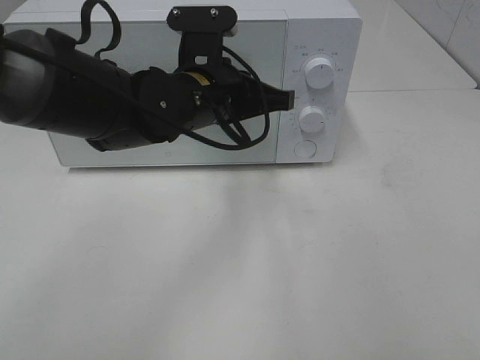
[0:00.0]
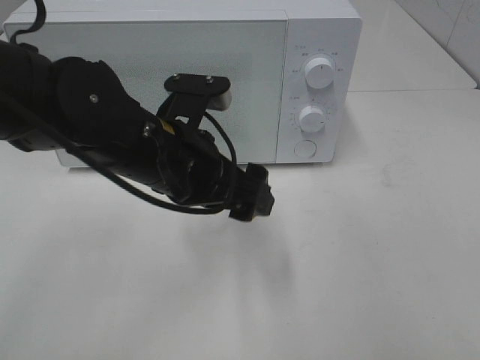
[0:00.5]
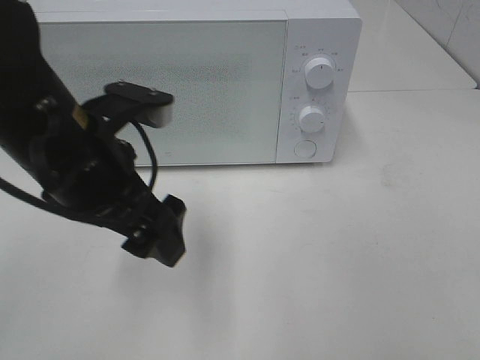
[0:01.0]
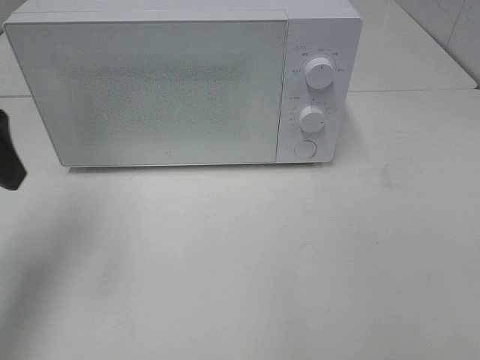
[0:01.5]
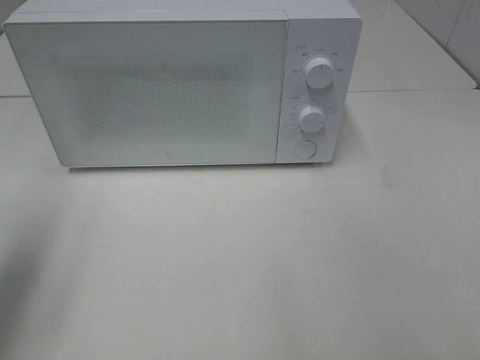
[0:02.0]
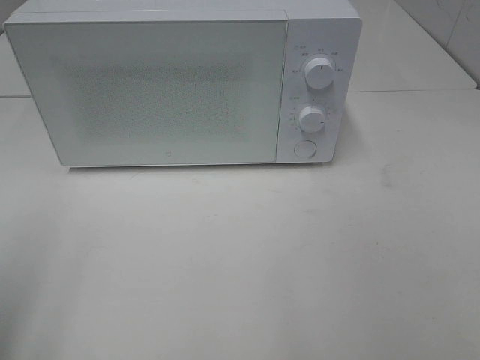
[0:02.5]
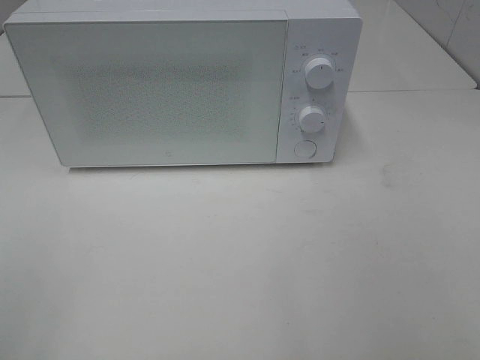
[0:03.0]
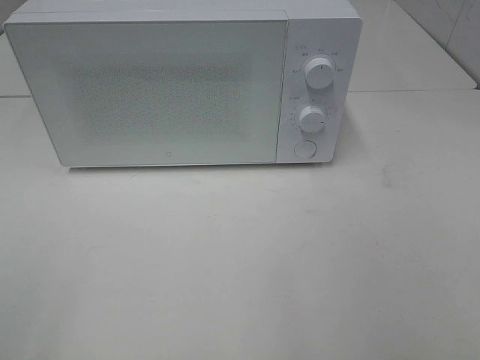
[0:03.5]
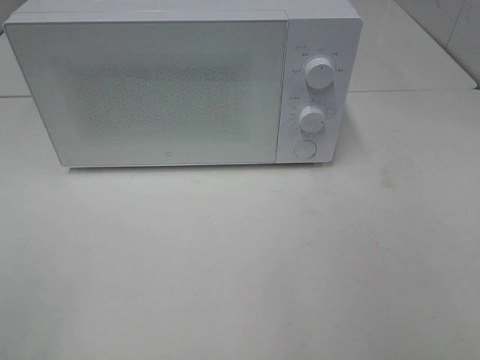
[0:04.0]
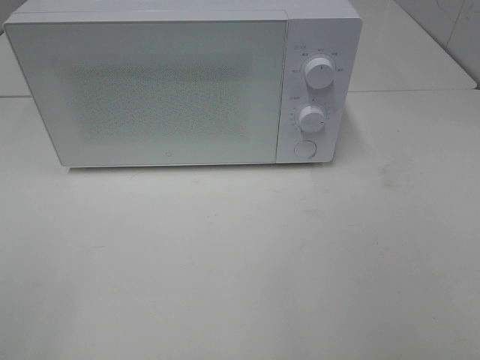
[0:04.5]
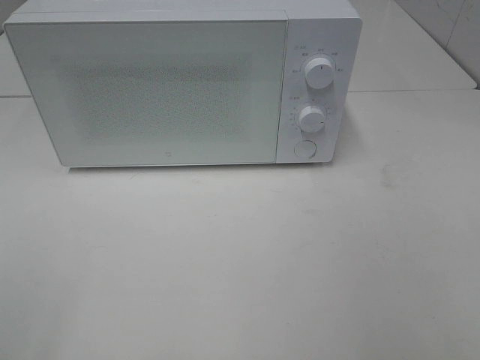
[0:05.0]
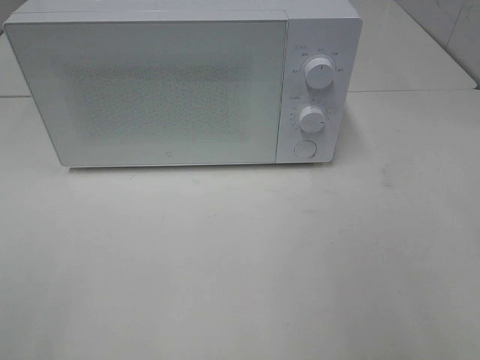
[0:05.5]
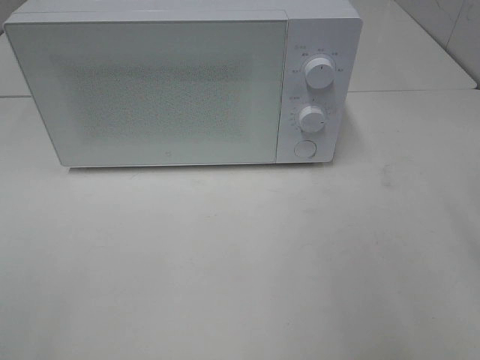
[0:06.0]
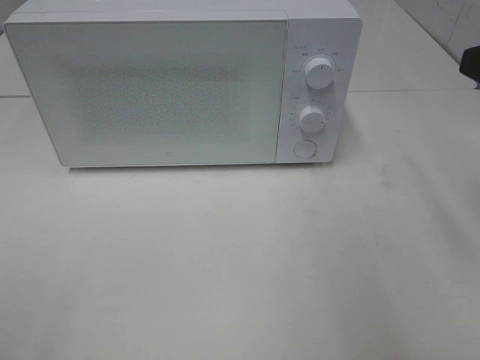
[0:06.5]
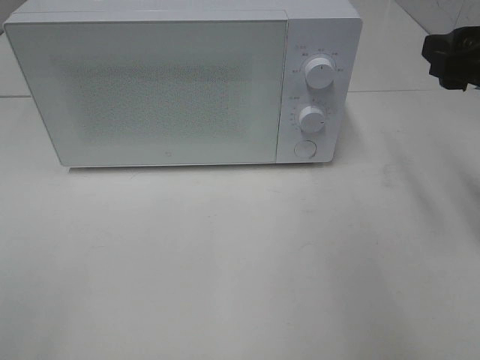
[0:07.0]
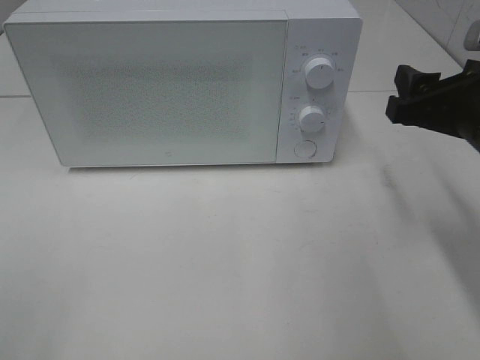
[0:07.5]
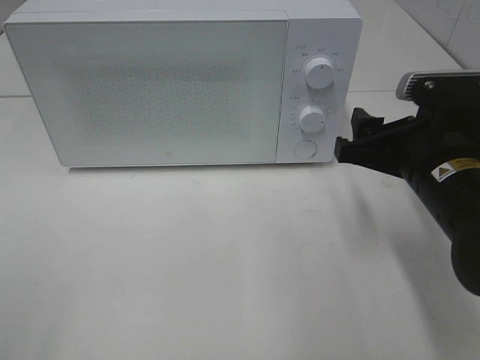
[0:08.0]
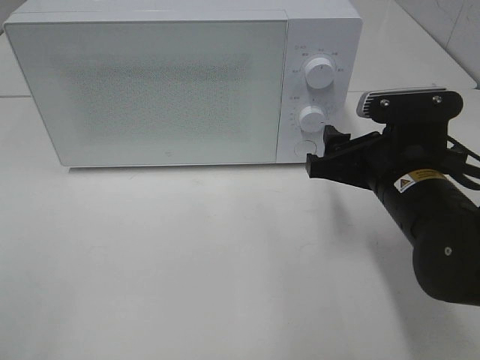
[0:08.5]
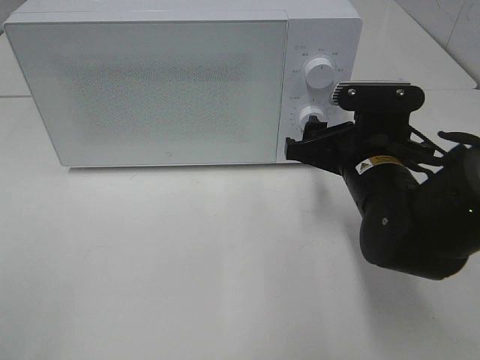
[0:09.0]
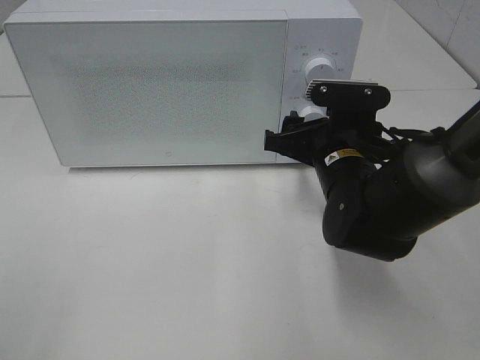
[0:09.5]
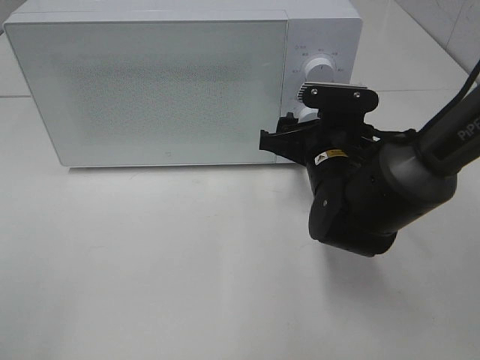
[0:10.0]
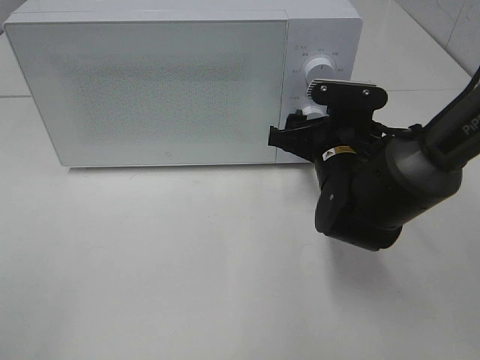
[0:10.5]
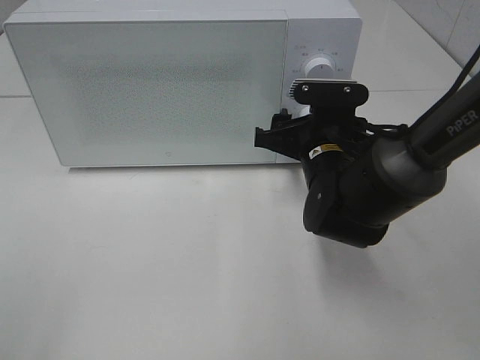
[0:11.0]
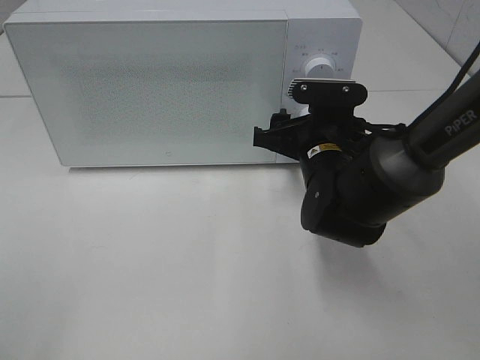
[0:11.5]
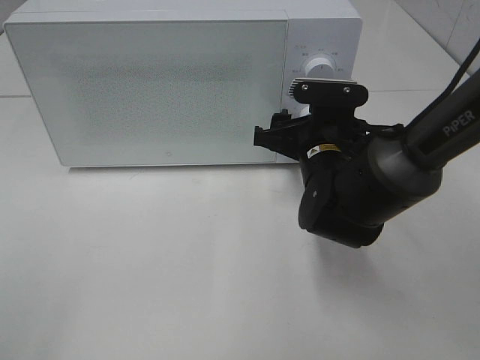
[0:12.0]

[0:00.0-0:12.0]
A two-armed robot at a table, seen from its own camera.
Task of the whole recording: Heat the burger.
0:00.0 to 0:02.0: The left gripper goes about 30 cm to the left and backward, and opens.
0:02.0 to 0:04.0: The left gripper heads backward, covering roughly 20 cm.
0:06.0 to 0:08.0: The right gripper is displaced downward, forward and to the left by approximately 20 cm.
0:08.0 to 0:10.0: The right gripper shifts about 10 cm forward, to the left and downward.
0:10.0 to 0:12.0: Neither gripper changes place.

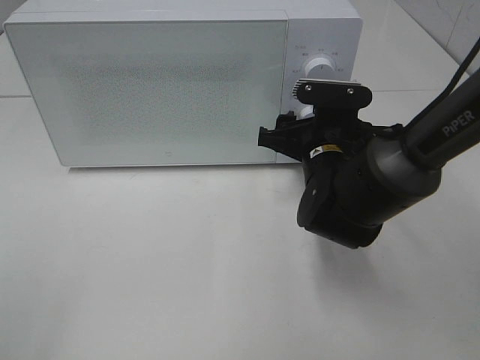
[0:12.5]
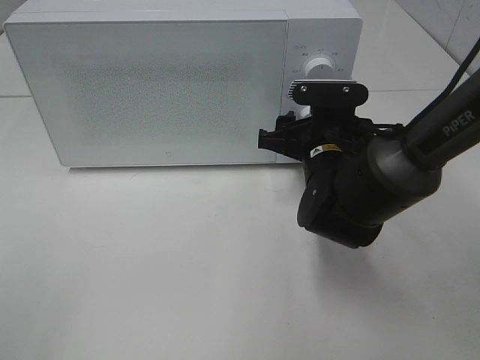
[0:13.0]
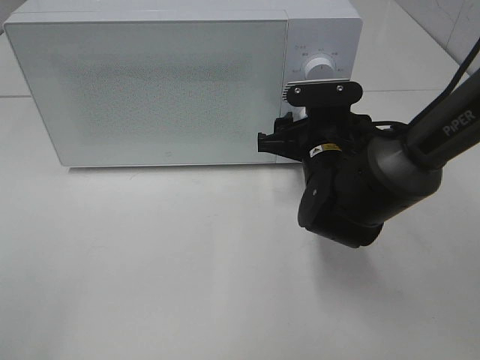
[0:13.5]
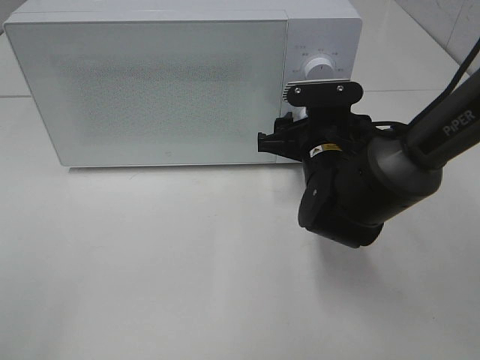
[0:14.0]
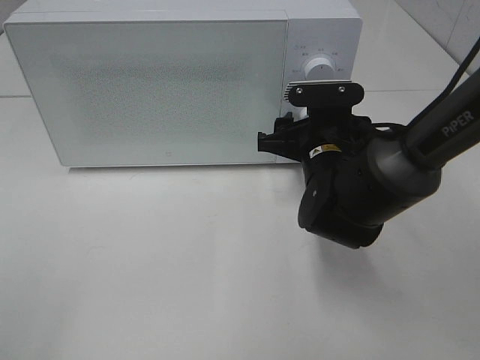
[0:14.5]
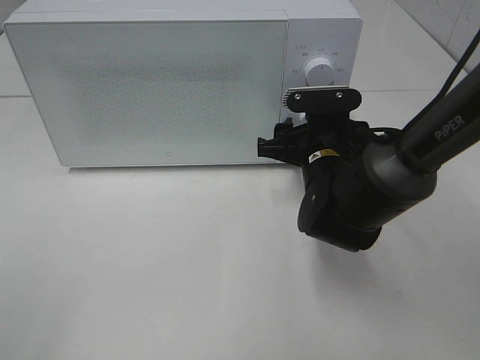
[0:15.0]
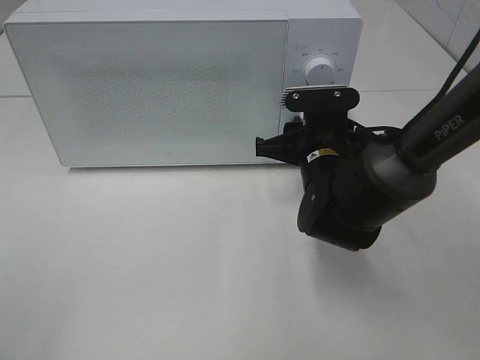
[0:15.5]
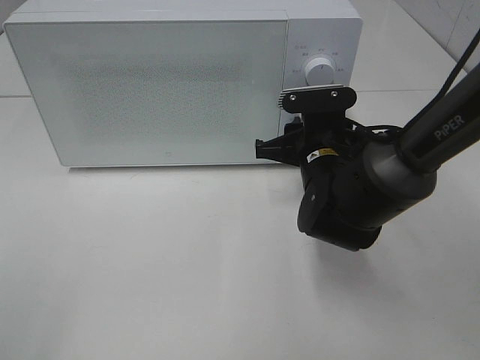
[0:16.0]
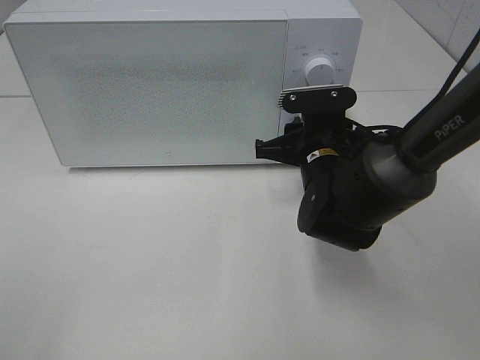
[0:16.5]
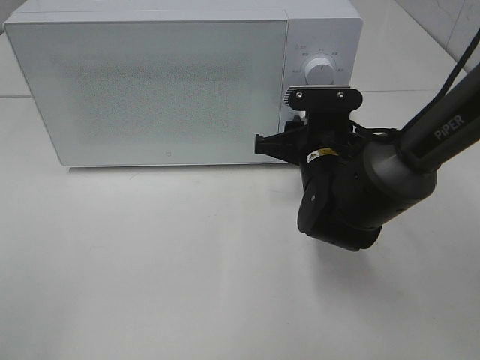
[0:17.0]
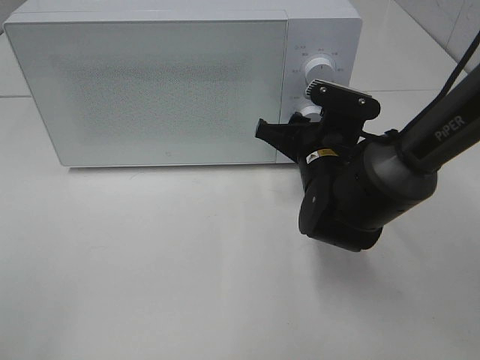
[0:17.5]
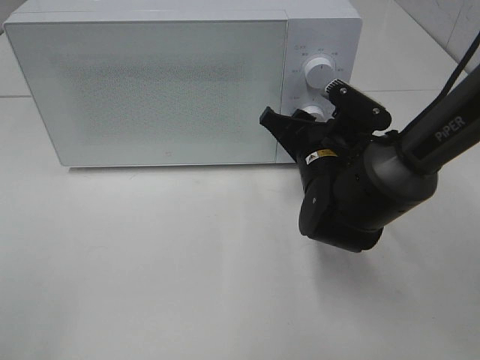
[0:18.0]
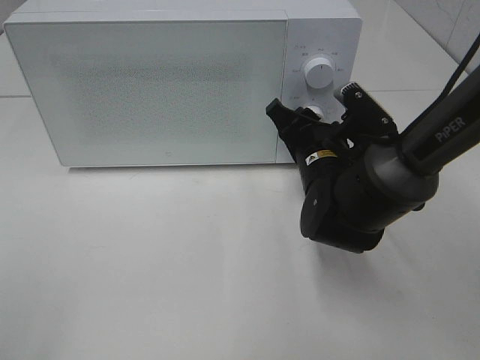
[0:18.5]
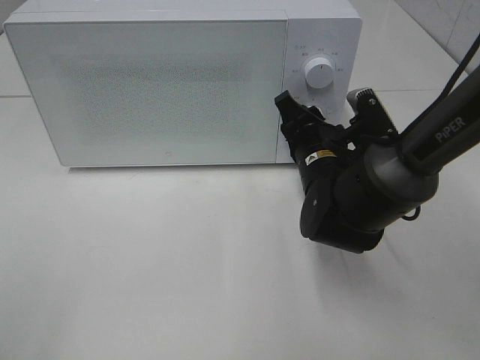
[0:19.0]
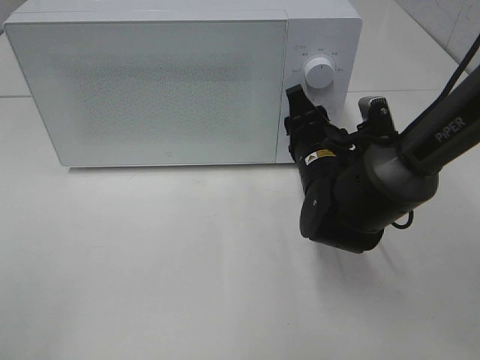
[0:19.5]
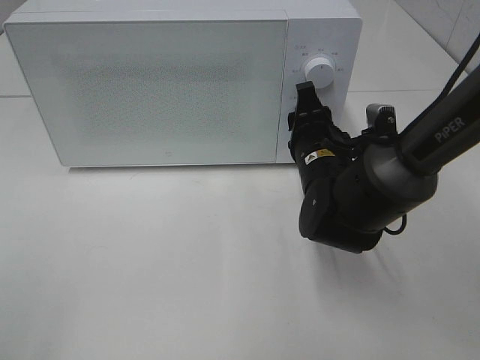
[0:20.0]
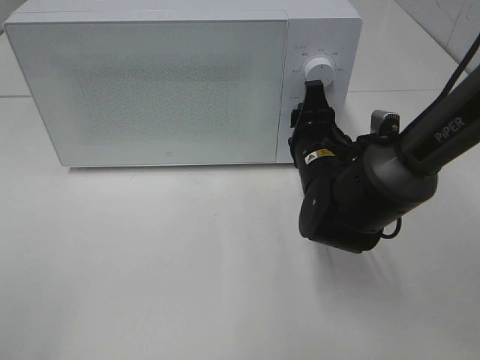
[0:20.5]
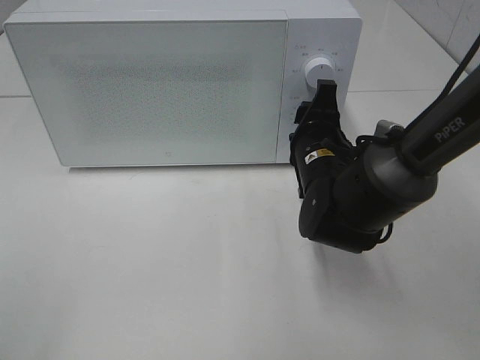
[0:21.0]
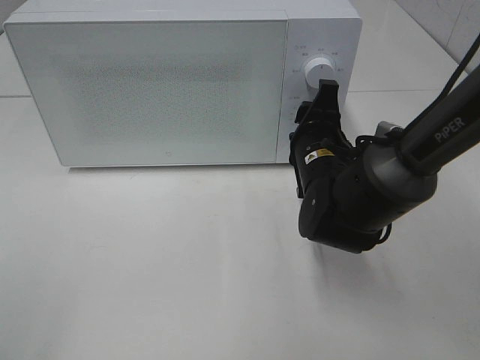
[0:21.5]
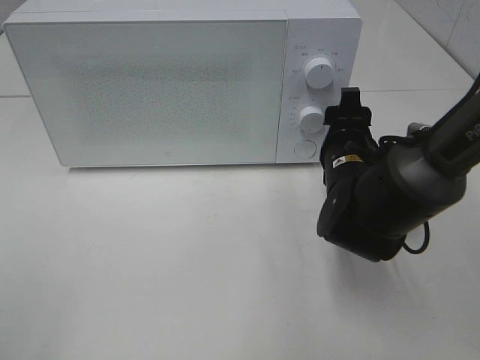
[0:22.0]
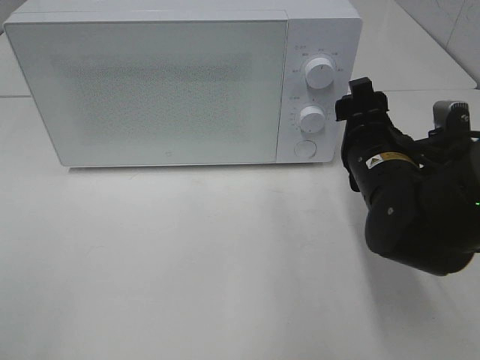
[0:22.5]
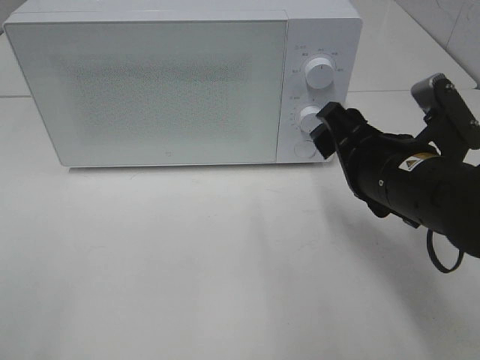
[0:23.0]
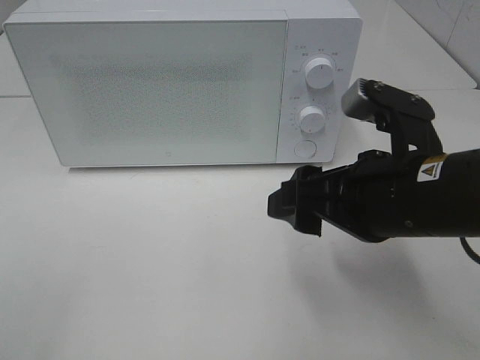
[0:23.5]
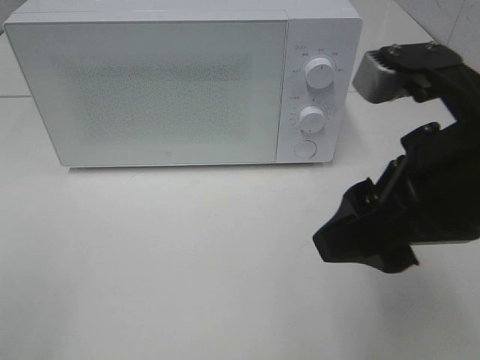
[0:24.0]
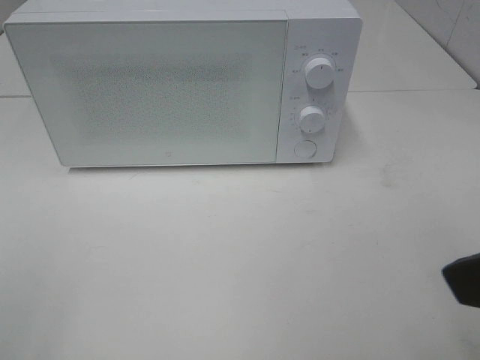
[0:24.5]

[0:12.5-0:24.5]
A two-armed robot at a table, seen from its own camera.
Task of the whole recording: Heat the burger.
Step, 0:12.5 to 0:22.0: Right hand: twist timer button.
0:12.5 to 0:14.5: There are only small adjustments of the grippers.
0:14.5 to 0:16.5: Neither gripper changes place.
0:20.5 to 0:22.5: The right gripper moves backward, about 5 cm.
0:22.5 to 0:24.5: The right gripper moves backward and upward, roughly 25 cm.

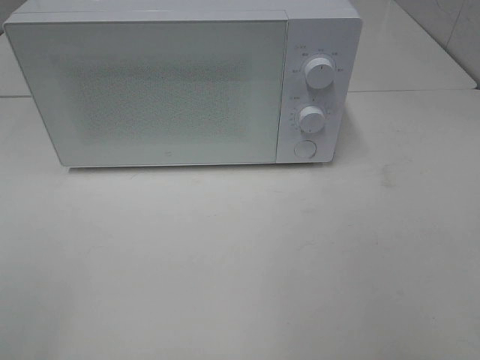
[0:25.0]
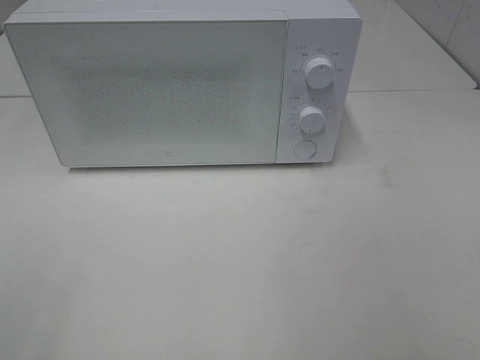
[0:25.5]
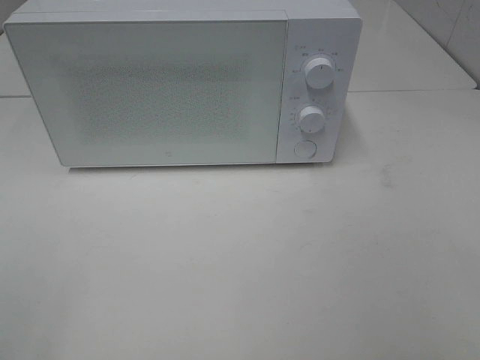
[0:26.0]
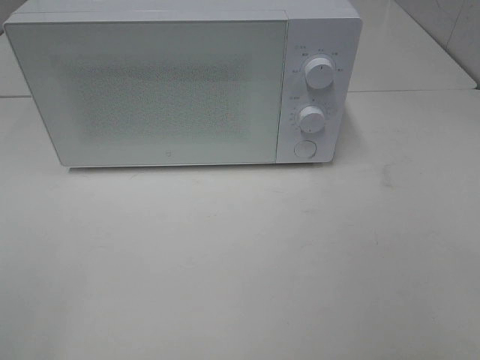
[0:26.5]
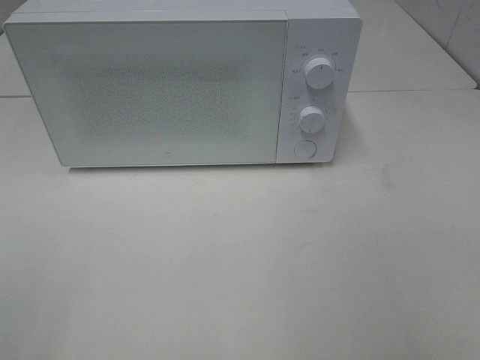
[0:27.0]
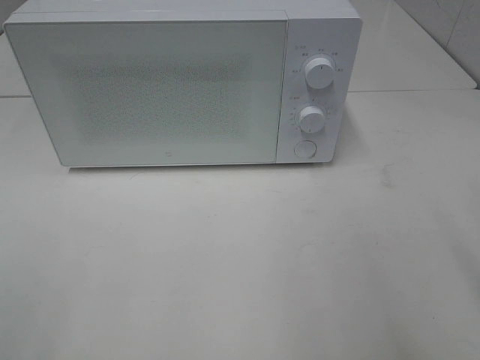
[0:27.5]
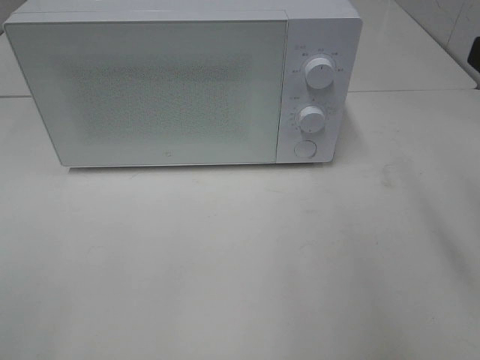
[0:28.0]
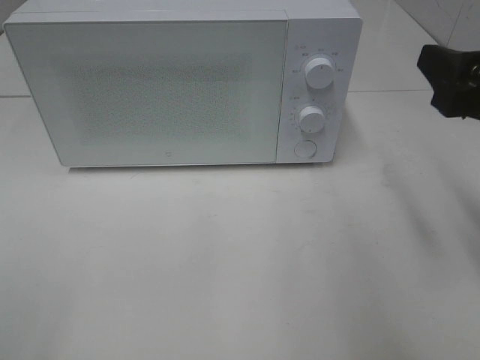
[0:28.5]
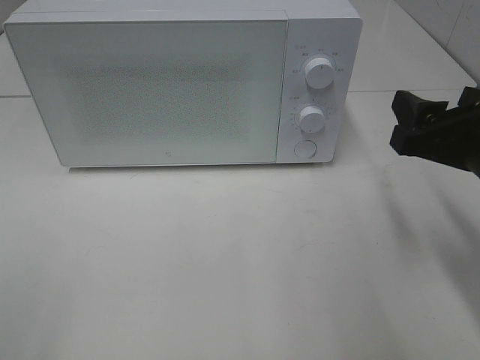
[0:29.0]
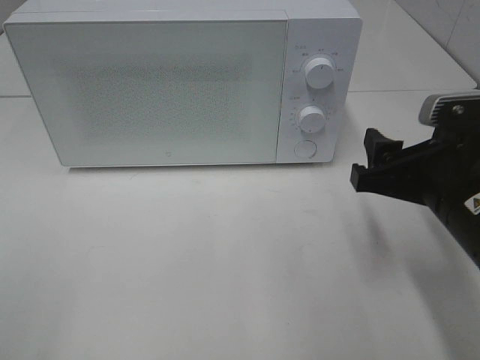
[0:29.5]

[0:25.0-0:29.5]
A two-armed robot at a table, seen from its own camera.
Task of the whole recording: Heat the burger.
0:27.0 to 0:29.5: The right gripper moves forward, downward and to the left, some 25 cm.
